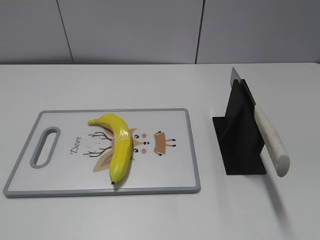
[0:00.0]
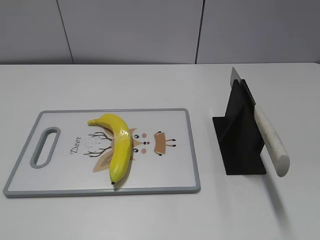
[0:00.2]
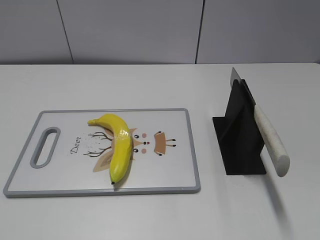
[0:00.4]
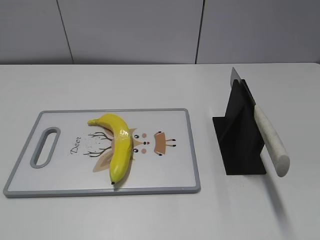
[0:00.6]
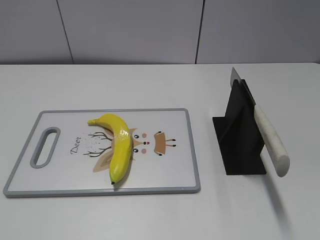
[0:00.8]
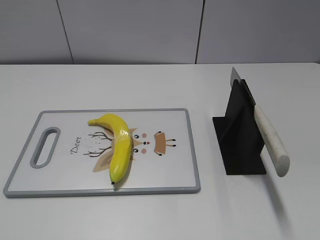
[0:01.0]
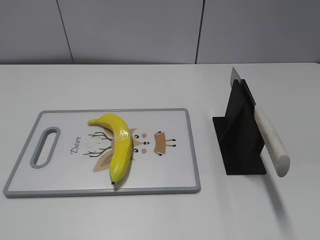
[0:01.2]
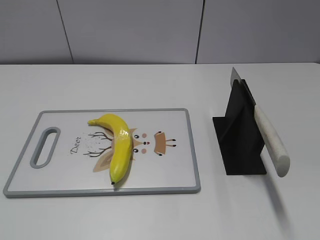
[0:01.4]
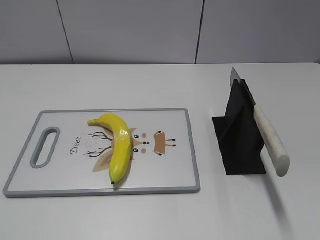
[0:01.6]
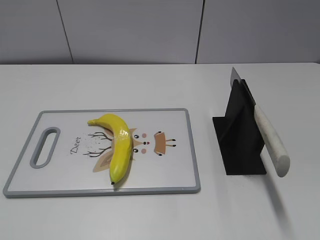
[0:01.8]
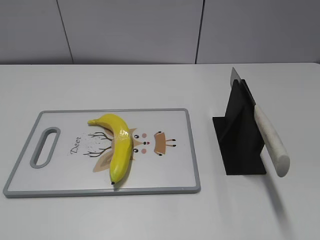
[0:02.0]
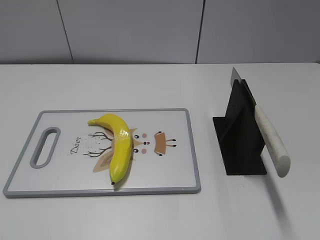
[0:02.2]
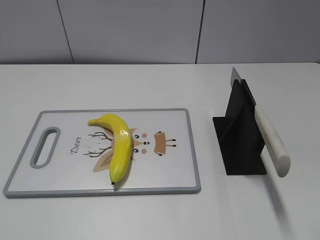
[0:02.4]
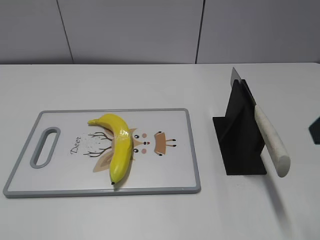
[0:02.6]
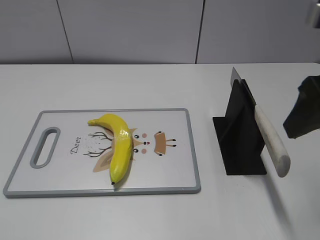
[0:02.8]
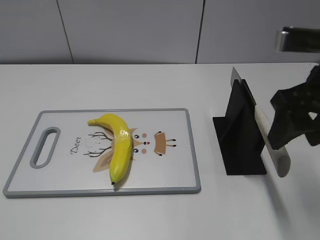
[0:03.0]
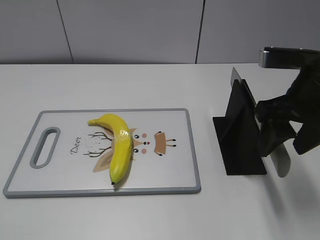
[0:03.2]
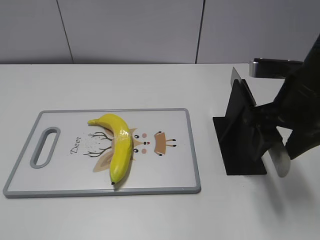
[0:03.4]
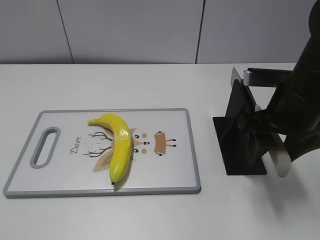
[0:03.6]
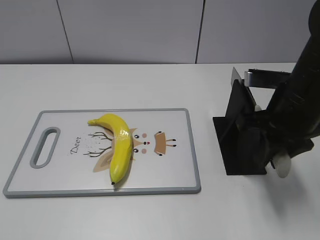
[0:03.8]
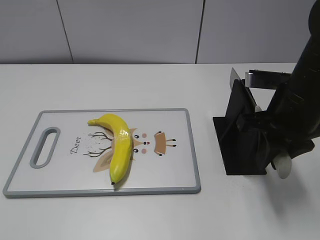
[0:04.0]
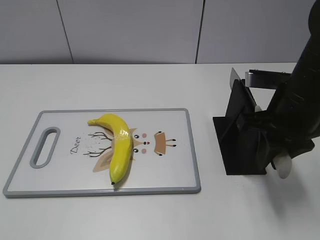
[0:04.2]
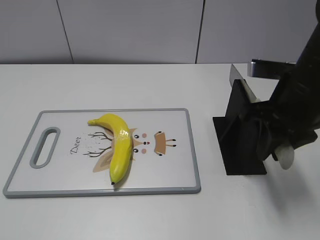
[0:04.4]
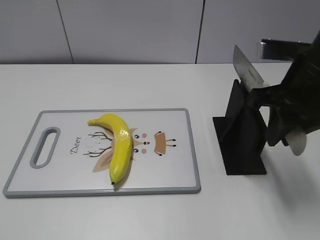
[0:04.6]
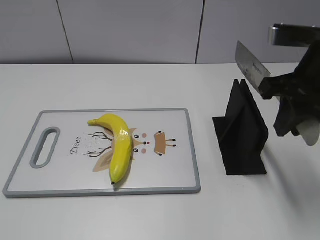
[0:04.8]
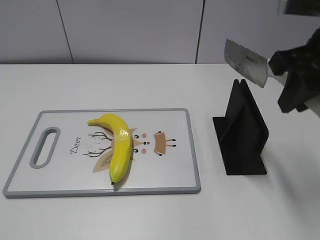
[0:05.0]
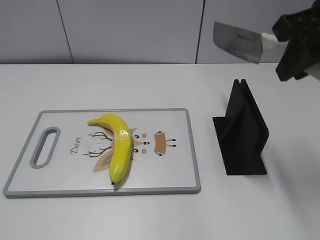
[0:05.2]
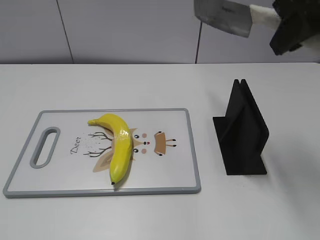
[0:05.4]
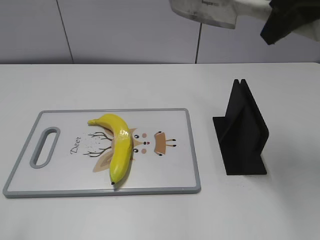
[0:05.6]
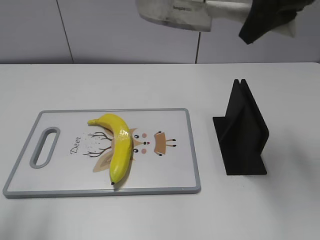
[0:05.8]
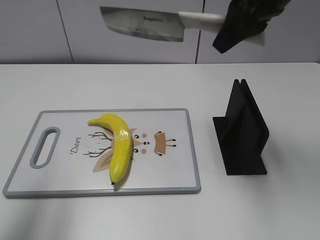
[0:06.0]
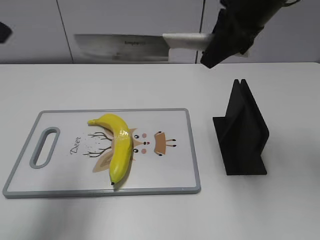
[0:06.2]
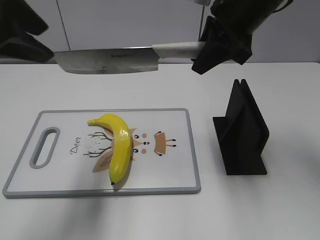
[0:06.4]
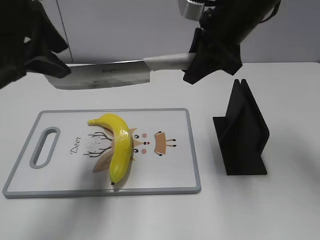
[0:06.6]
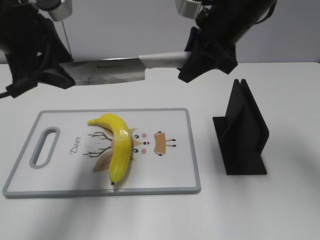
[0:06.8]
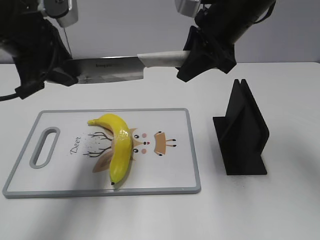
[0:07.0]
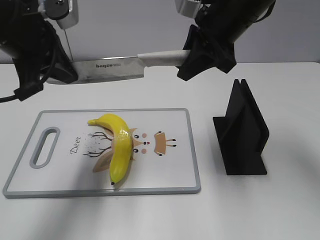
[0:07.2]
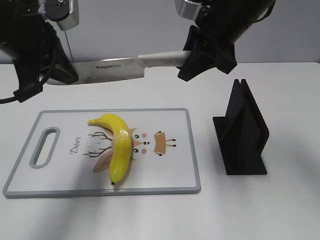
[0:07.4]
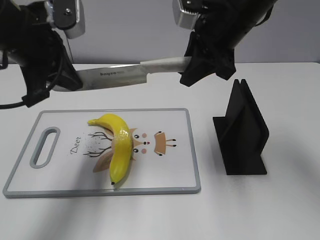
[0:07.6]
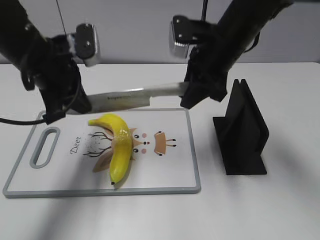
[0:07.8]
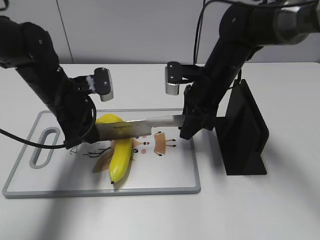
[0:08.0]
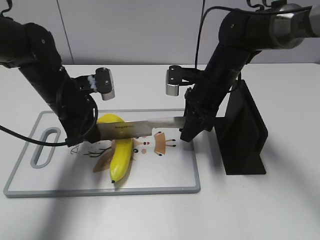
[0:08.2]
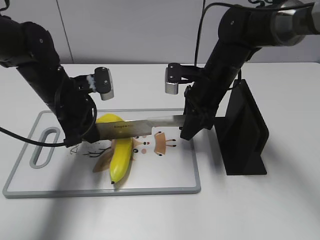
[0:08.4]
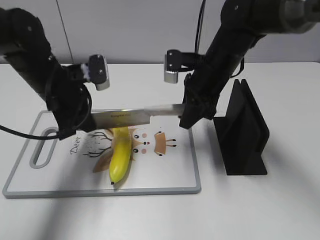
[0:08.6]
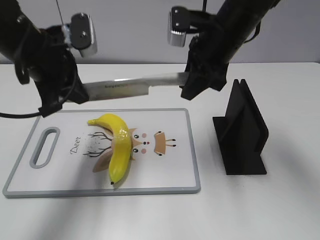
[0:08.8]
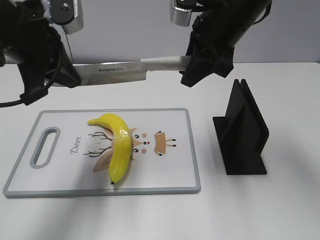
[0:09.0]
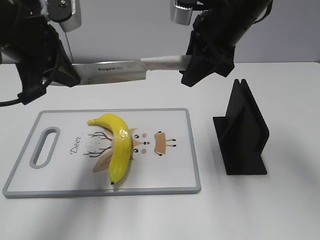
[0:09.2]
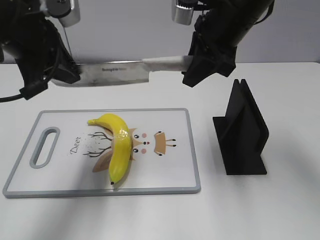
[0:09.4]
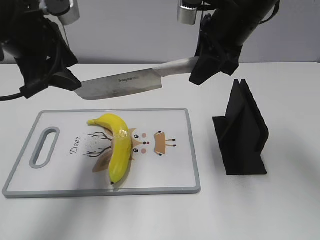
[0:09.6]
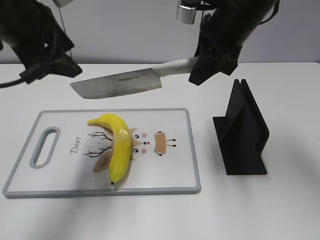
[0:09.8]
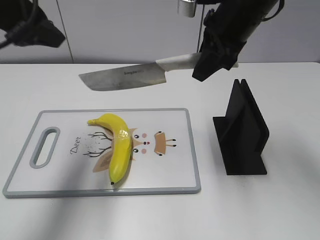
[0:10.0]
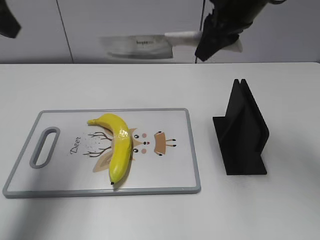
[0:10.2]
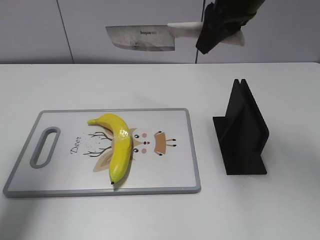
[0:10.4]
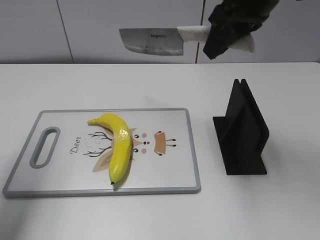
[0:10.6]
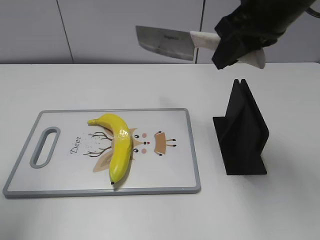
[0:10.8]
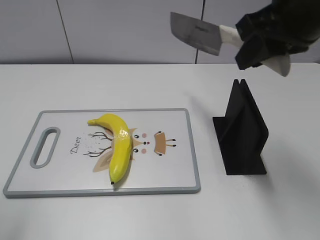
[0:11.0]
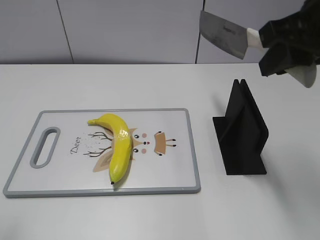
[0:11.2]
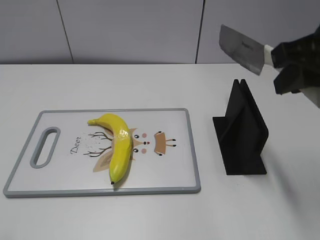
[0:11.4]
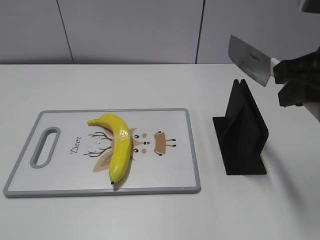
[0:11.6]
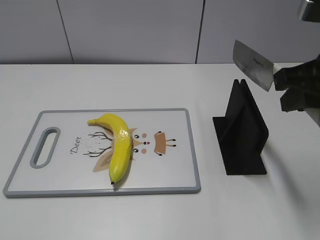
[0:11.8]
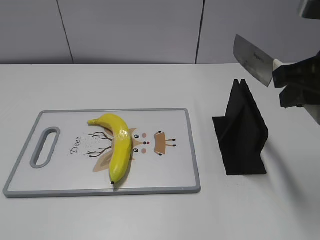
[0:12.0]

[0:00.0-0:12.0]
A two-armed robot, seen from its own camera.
Task of the whole recording: cut plastic banana.
Step, 0:00.0 to 0:05.0: Grab the knife handle with your right hand.
Step, 0:05.2 to 0:08.8: Lift the knife with your right hand.
Step, 0:09.0 to 0:10.4: Cut the banana with your left hand.
Step, 0:10.6 to 0:11.4: Lift the knife with your right hand.
0:01.6 to 0:03.0: The right gripper is displaced forward and to the left by roughly 25 cm.
0:03.0 to 0:04.4: The right gripper changes place by some 5 cm, and closes up.
0:04.4 to 0:06.0: The right gripper goes approximately 15 cm upward and forward. Meanwhile the left gripper shifts some 20 cm forward and upward.
0:06.0 to 0:07.6: The left gripper travels forward, downward and to the right by some 20 cm, and closes its fingers; the right gripper travels downward by approximately 5 cm.
0:07.6 to 0:09.0: The left gripper goes downward and returns, about 15 cm each way. Meanwhile the right gripper moves approximately 15 cm downward and comes back.
0:09.0 to 0:10.4: The left gripper travels to the left and upward by approximately 15 cm, and opens; the right gripper moves some 5 cm.
0:10.4 to 0:12.0: The left gripper goes about 30 cm backward. The right gripper is displaced backward and to the right by approximately 15 cm.

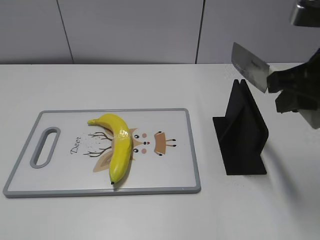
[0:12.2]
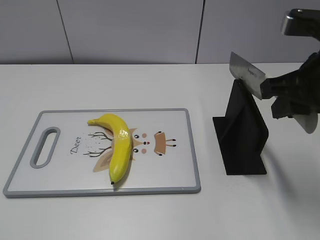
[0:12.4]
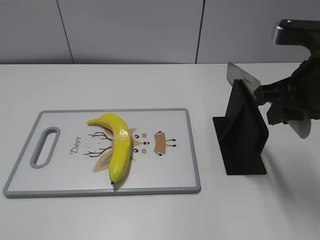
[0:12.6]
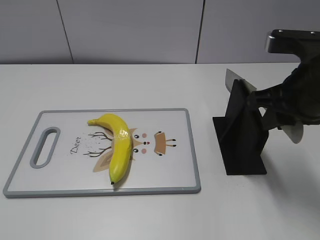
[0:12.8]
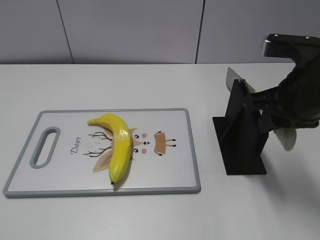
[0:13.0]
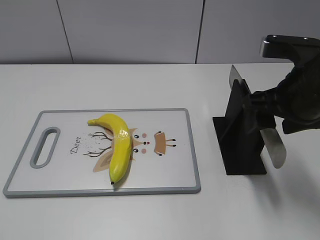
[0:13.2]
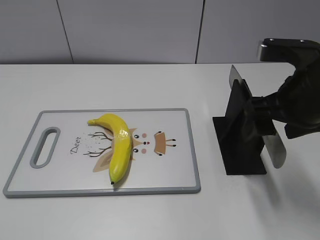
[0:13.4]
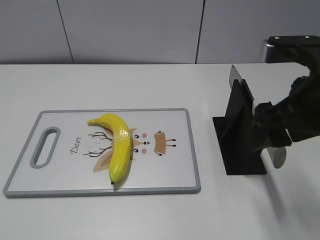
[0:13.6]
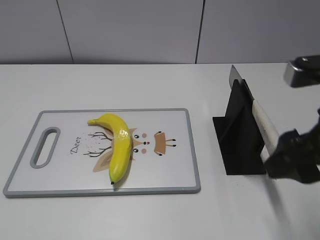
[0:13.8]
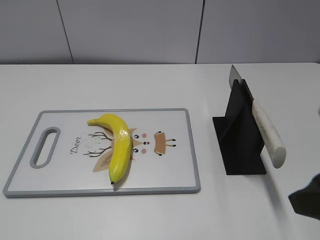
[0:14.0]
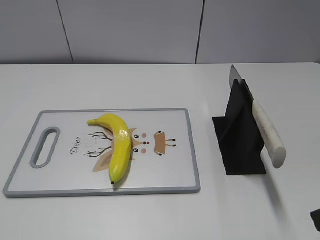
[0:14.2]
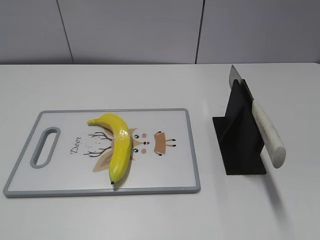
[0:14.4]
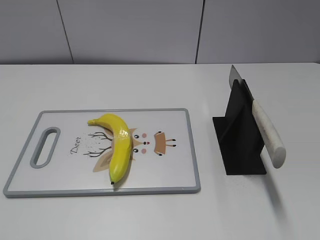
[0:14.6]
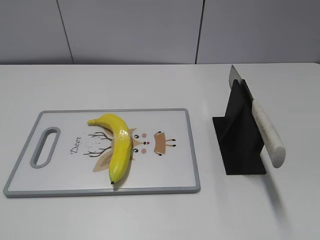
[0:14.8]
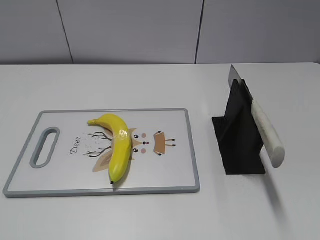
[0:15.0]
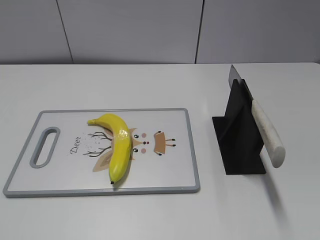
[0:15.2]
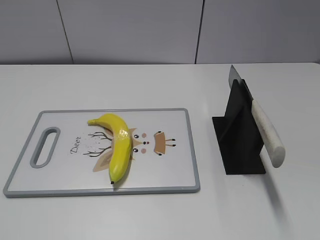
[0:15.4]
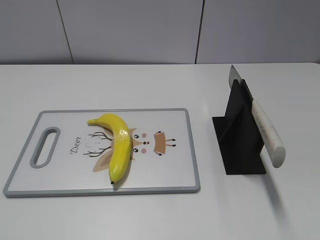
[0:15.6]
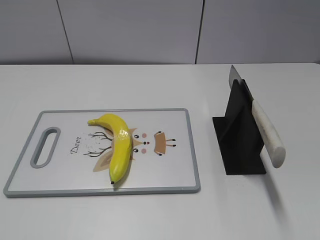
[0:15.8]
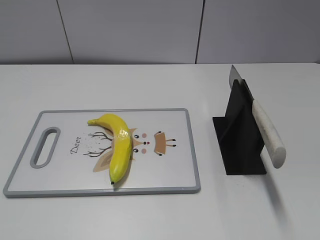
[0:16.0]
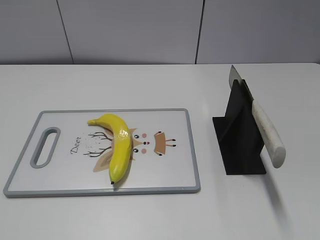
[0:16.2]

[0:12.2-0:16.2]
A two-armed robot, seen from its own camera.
Task of the whole recording: cut plastic banana.
Step, 0:12.2 to 0:16.2: Place the knife on the storage rack with your right hand.
0:12.2 to 0:13.6: The right gripper opens its fingers.
0:13.6 to 0:14.8: The right gripper goes approximately 20 cm backward and to the right.

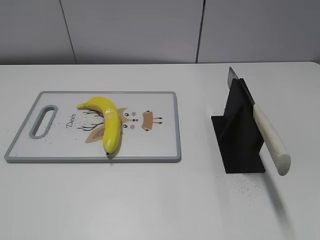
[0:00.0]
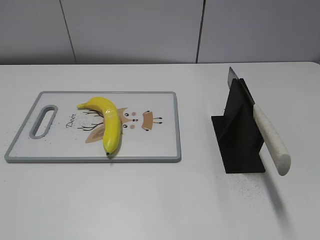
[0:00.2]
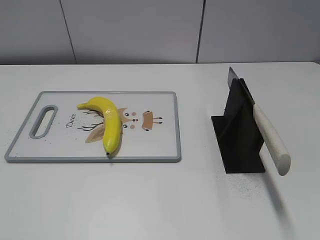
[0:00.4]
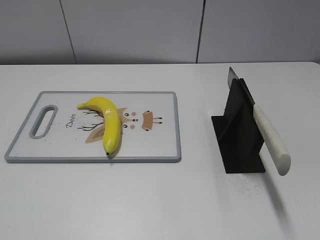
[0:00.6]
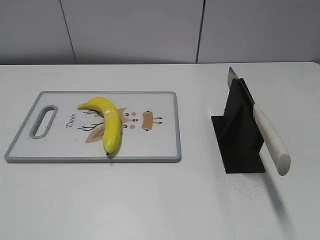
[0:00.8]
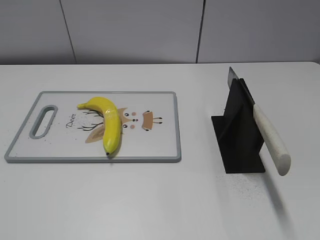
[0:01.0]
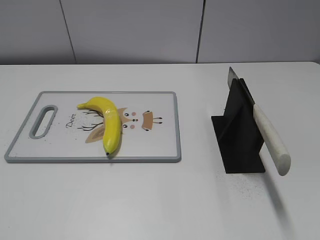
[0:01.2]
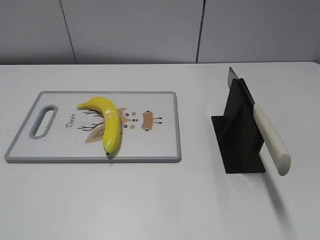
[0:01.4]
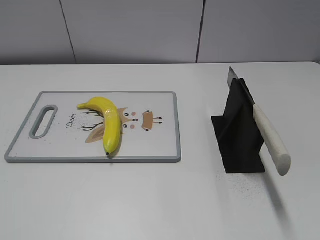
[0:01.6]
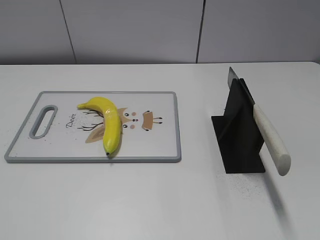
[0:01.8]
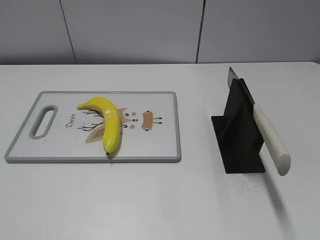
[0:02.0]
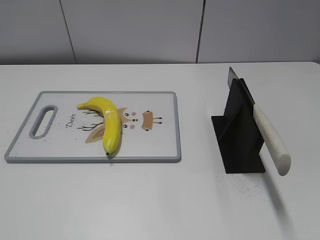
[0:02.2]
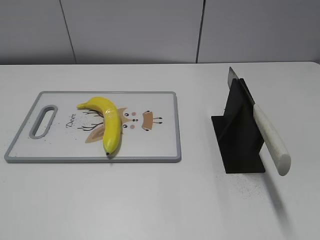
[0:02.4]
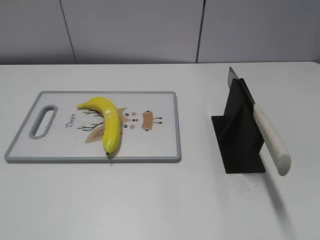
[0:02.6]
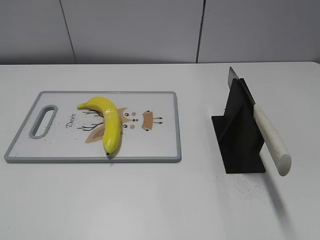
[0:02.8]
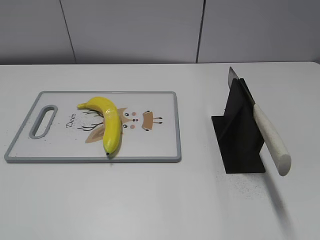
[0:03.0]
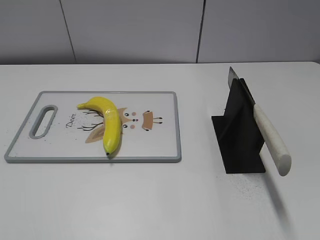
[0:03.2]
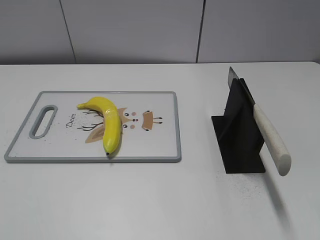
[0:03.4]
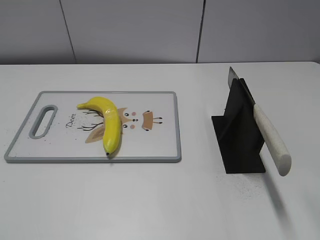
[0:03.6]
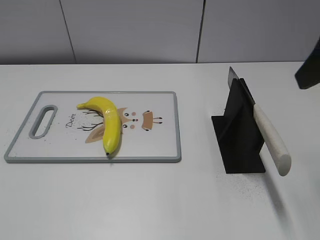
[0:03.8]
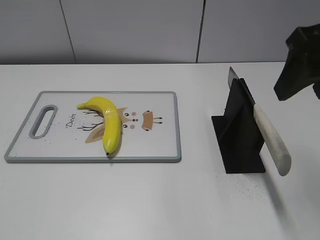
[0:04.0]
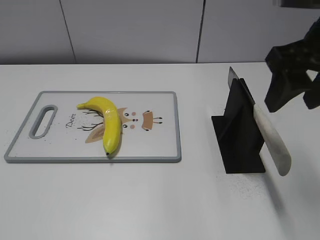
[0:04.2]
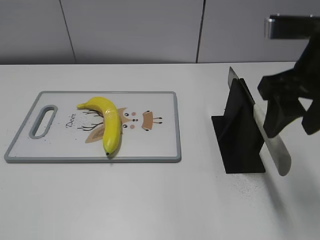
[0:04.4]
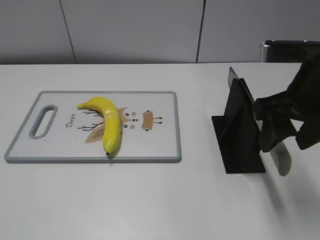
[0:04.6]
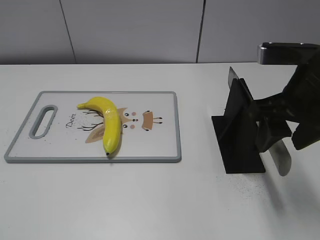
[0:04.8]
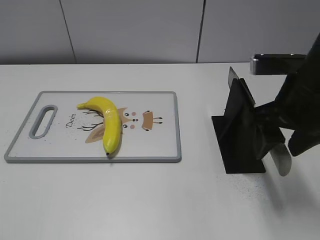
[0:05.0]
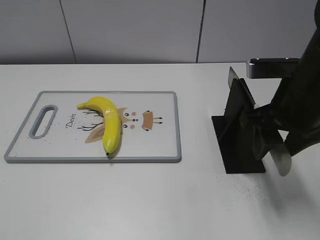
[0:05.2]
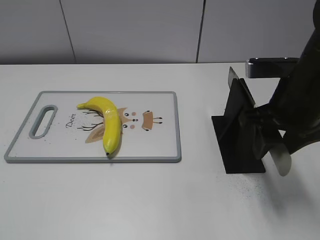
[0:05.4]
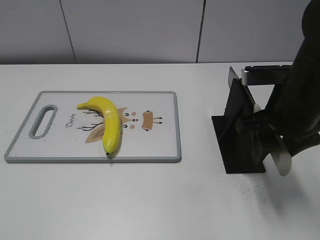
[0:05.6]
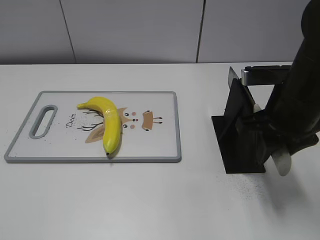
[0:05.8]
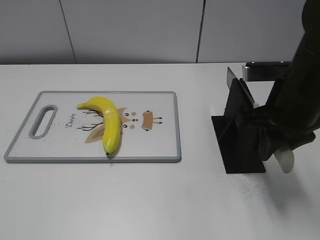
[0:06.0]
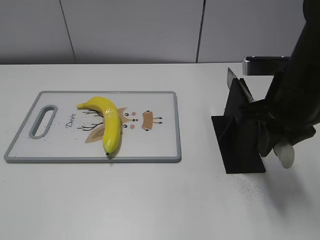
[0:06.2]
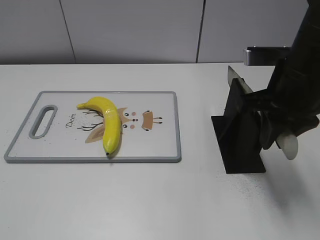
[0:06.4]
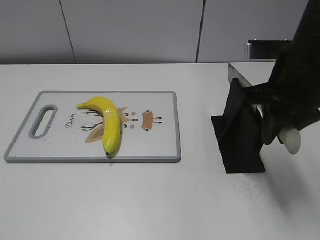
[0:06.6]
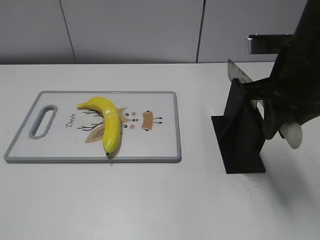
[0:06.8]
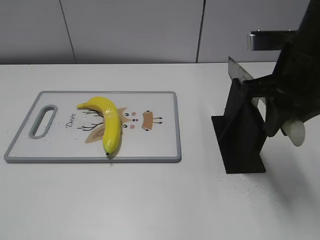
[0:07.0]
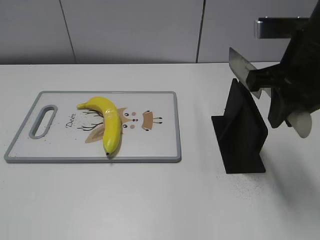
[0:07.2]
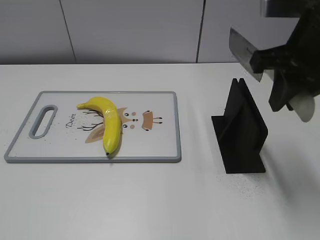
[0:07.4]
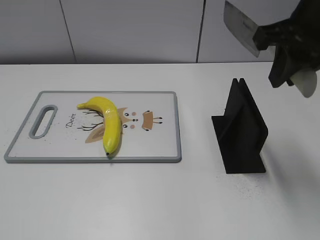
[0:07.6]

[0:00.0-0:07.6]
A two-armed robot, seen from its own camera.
Task of the whole recording: cut plastic banana.
Step, 0:00.0 to 0:07.2: Grab the knife handle with your right hand.
0:03.0 to 0:04.6: The right gripper travels forward, to the left and downward by about 15 cm.
0:04.6 to 0:06.0: The right gripper closes up.
0:06.0 to 0:07.6: The right gripper is displaced upward by about 10 cm.
